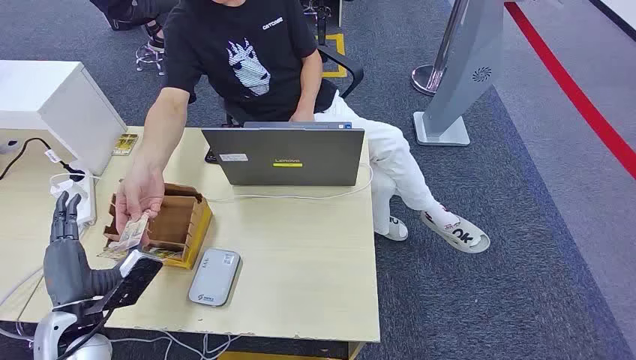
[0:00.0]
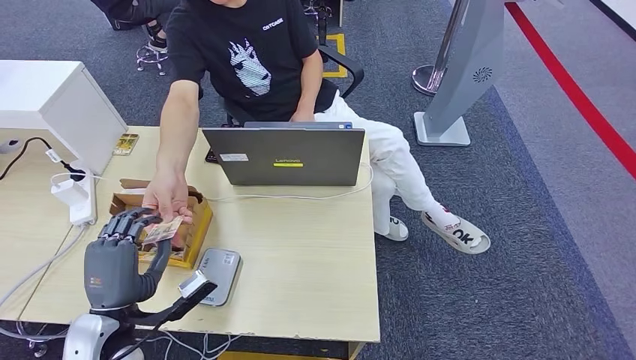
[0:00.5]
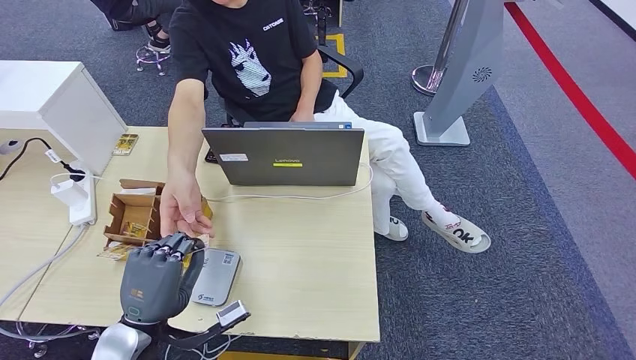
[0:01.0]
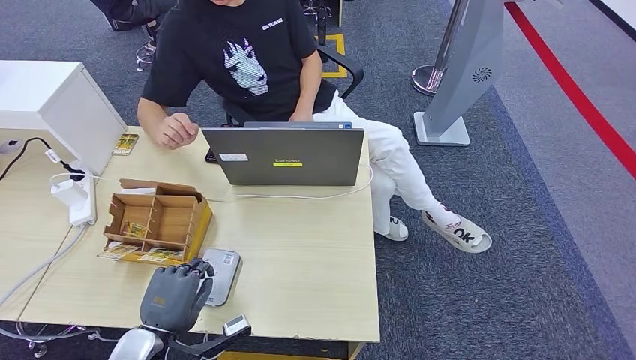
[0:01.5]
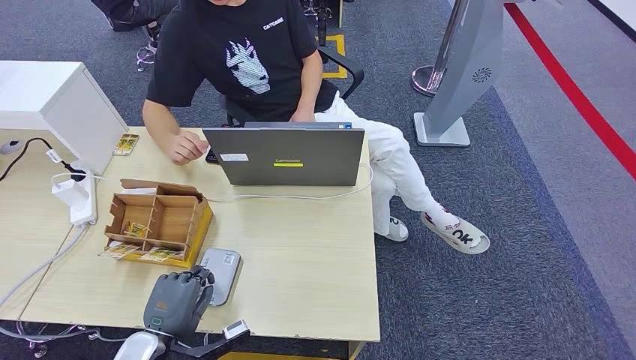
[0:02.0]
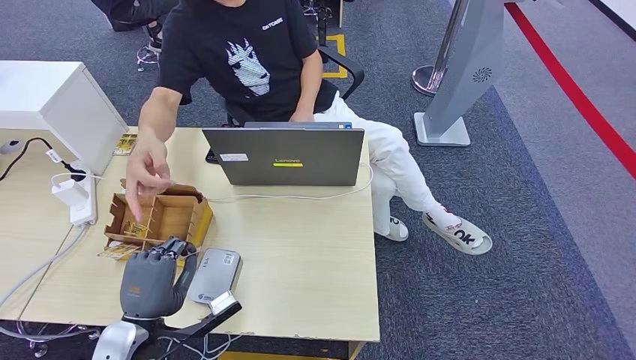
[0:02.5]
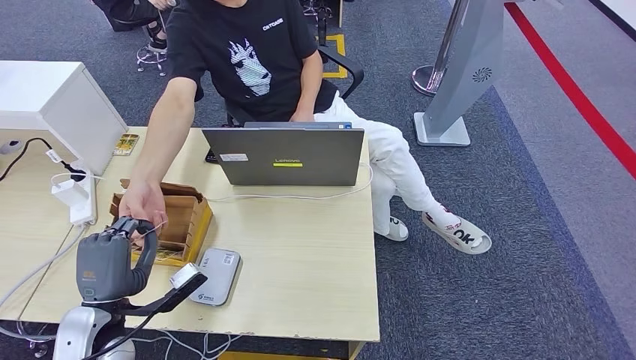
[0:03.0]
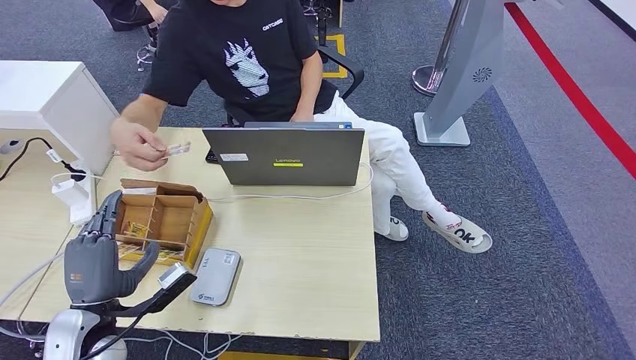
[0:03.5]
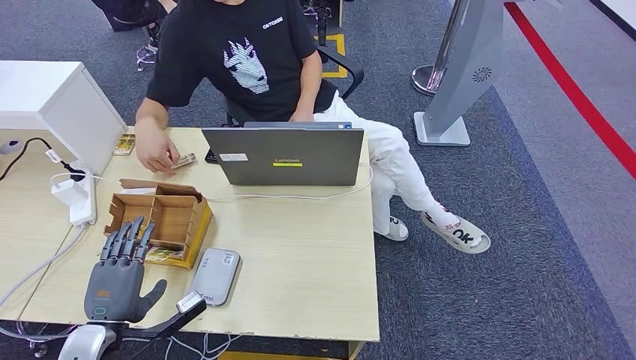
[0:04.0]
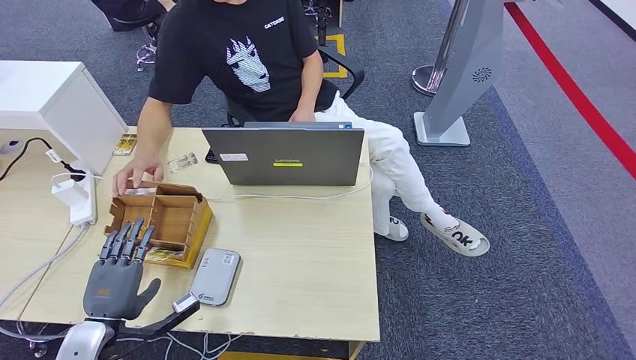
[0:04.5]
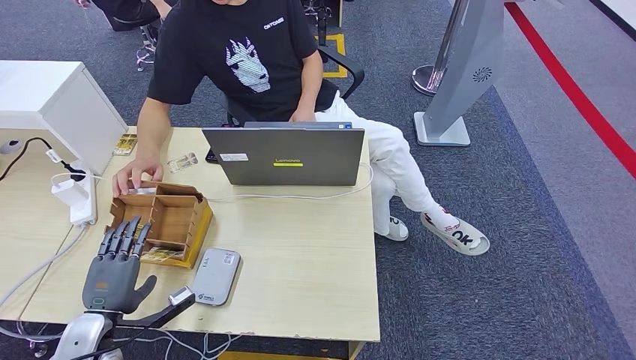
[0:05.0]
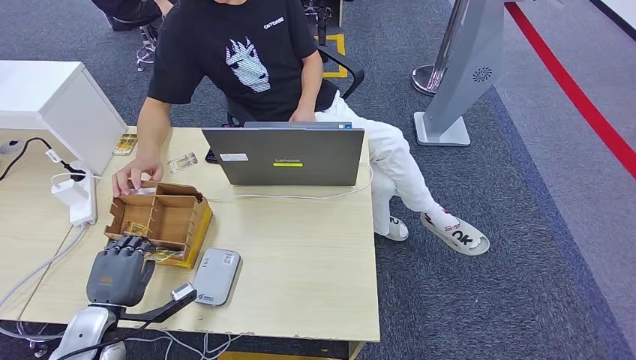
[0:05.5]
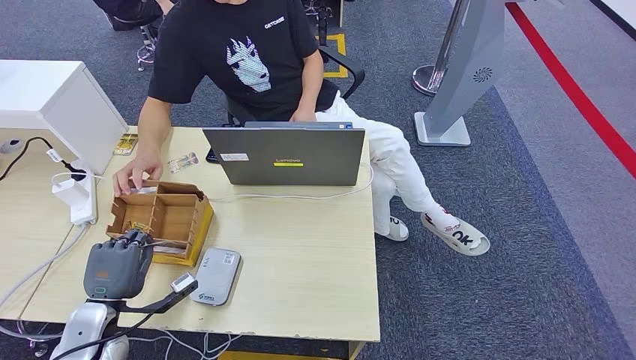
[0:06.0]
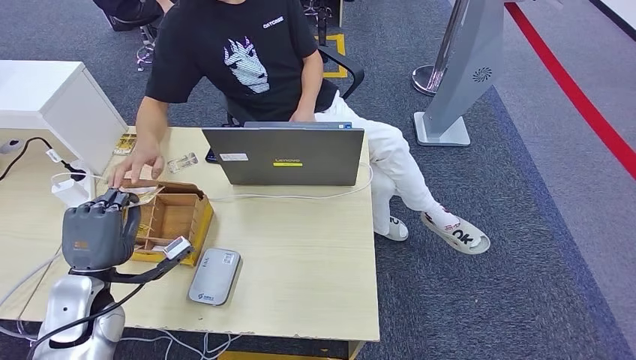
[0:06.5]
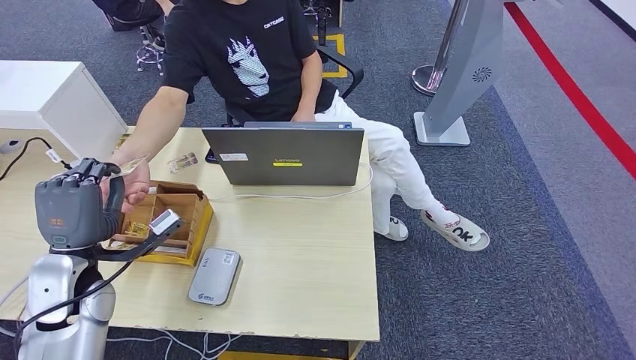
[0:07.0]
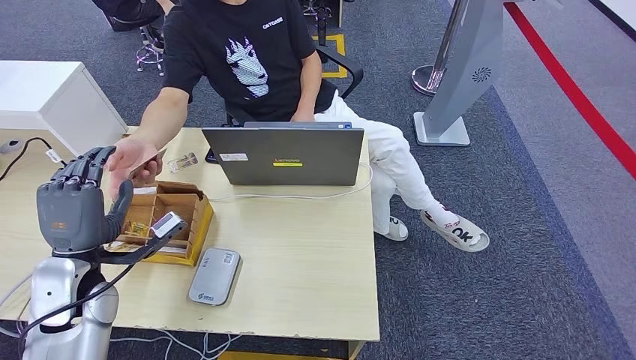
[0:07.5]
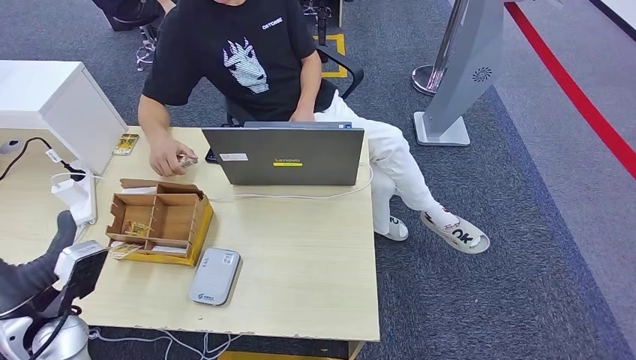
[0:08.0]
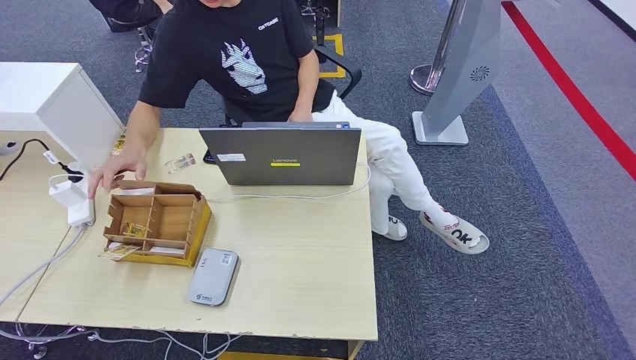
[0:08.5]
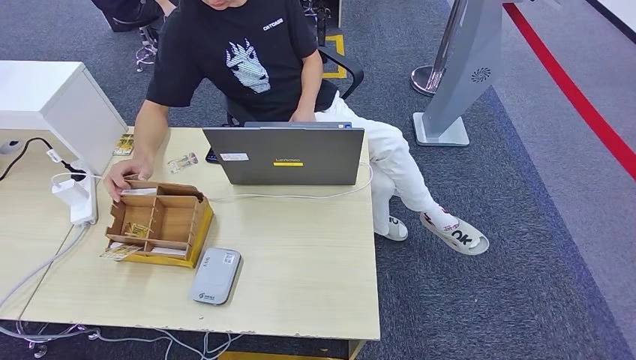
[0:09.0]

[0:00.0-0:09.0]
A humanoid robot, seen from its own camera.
Step, 0:00.0 to 0:02.5: Take the ID card from the person's hand.
Step, 0:03.0 to 0:03.5: Hand the ID card to the person.
Step, 0:04.0 to 0:06.0: Pick up the room key from the key card box.
Step, 0:06.5 to 0:09.0: Hand the room key to the person.
0:02.0 to 0:04.5: The left hand moves to the left, about 10 cm.
0:04.5 to 0:07.0: The left hand moves upward and forward, about 15 cm.
0:07.0 to 0:09.0: The left hand moves downward and backward, roughly 40 cm.
